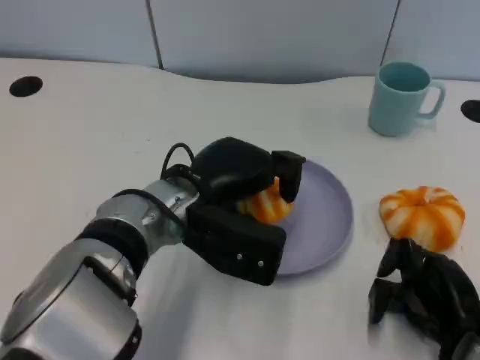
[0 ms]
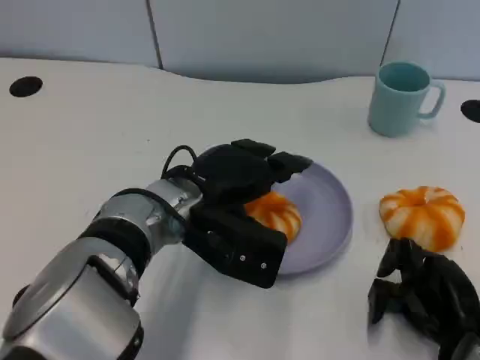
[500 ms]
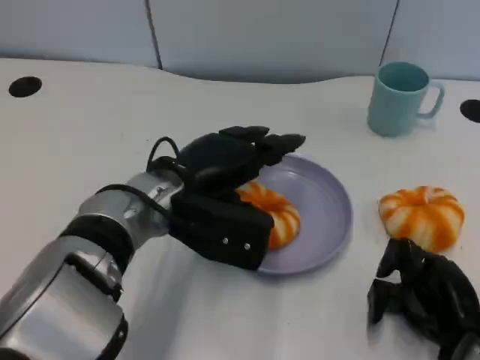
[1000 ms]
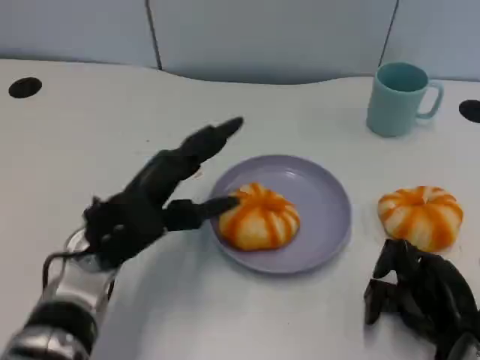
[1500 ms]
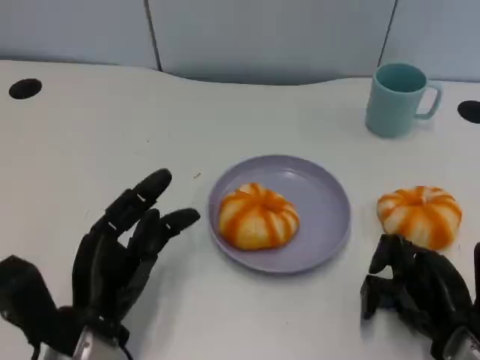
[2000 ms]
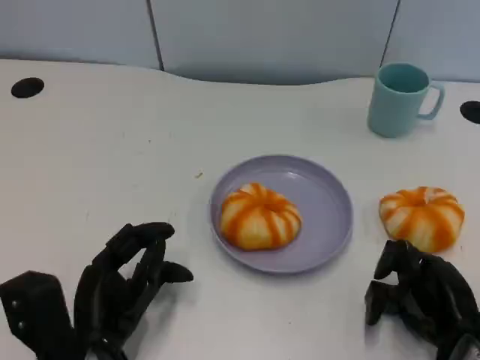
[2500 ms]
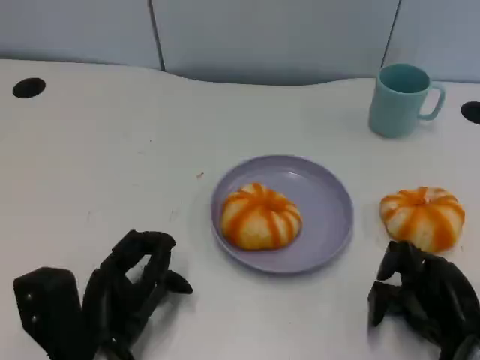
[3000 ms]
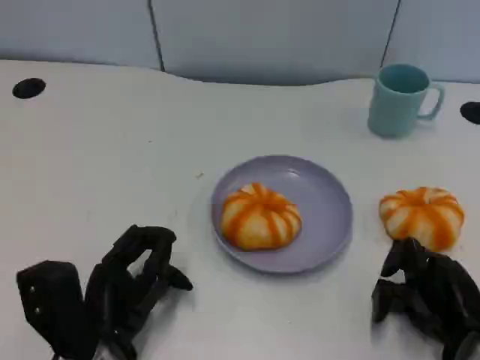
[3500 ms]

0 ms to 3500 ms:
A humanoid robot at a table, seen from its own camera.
Task of the whole recording: Grasp the bread from the table and place it into the plate.
0 ms to 2000 ms: The left hand moves to the left, backward and downward, about 15 cm.
2000 ms to 3500 ms: There are only small adjustments of the hands.

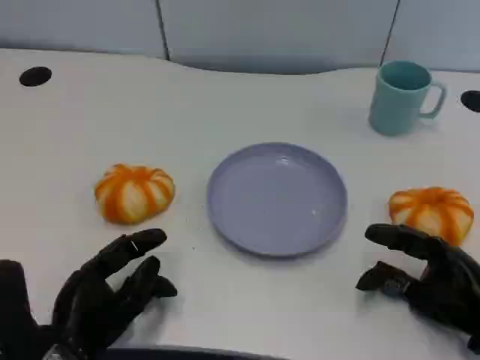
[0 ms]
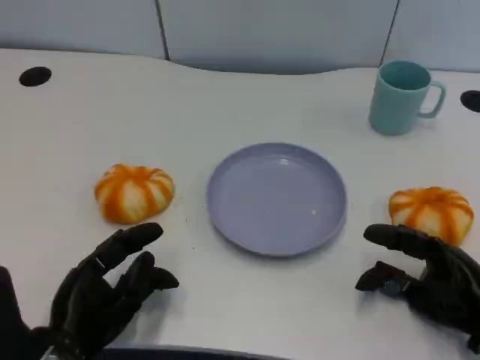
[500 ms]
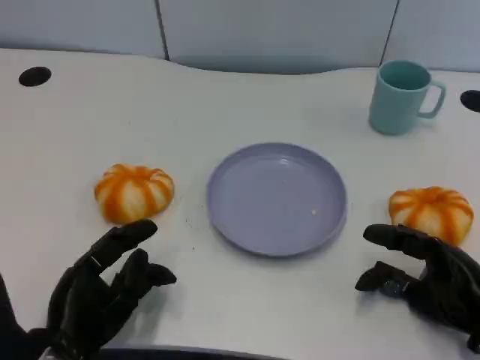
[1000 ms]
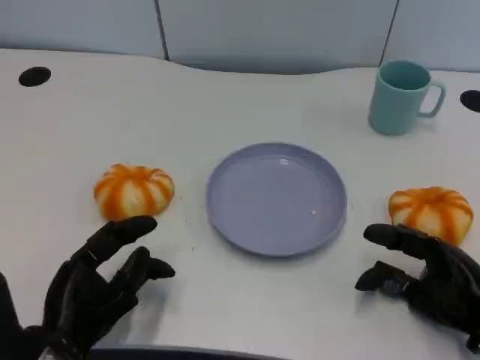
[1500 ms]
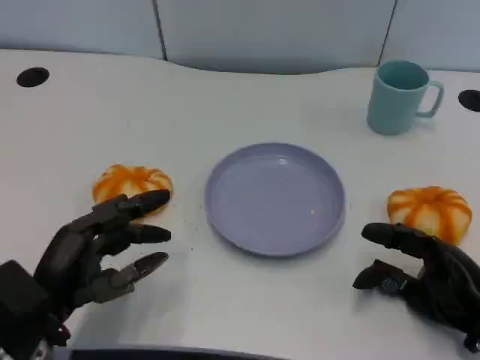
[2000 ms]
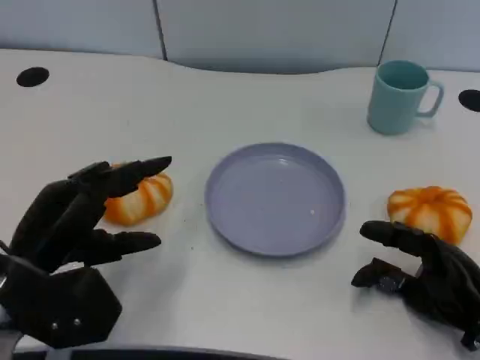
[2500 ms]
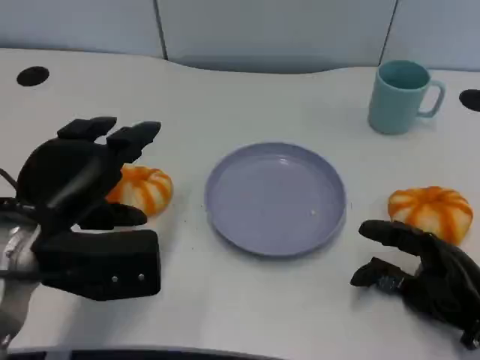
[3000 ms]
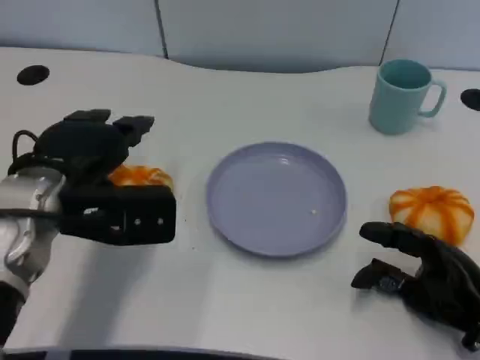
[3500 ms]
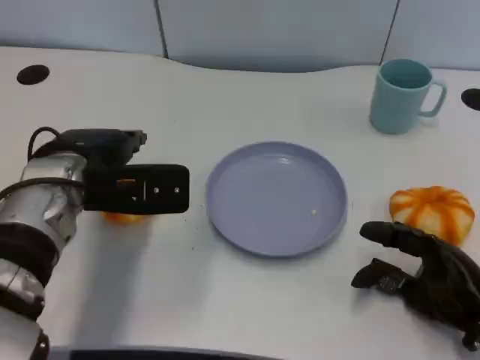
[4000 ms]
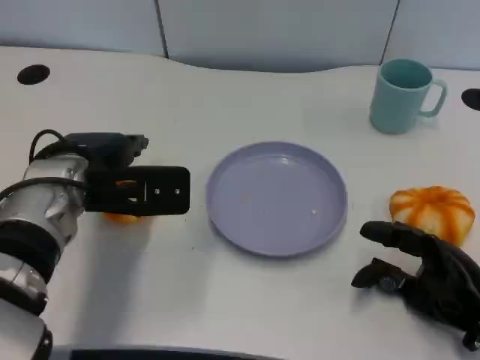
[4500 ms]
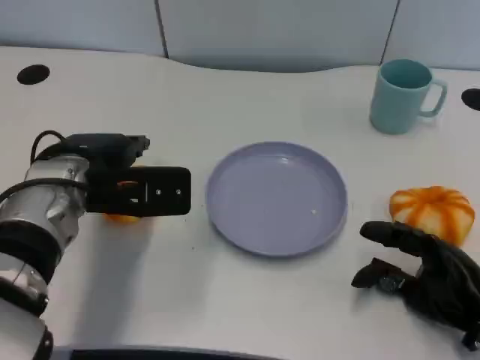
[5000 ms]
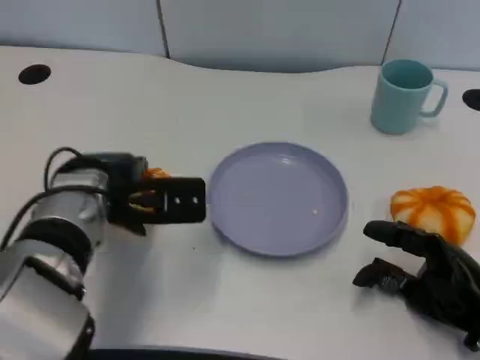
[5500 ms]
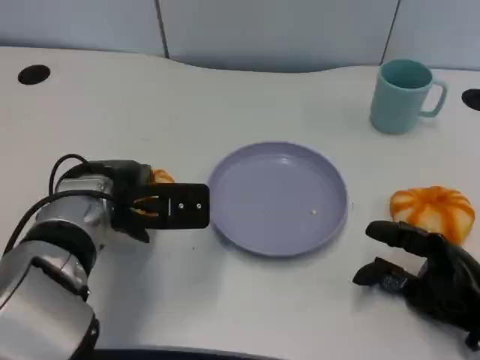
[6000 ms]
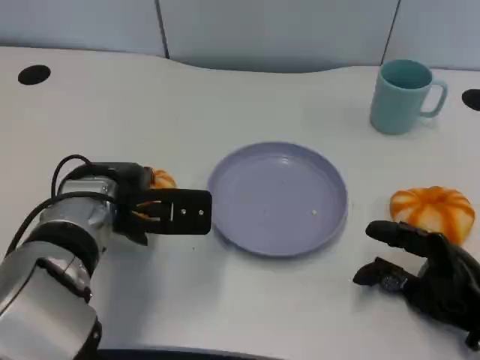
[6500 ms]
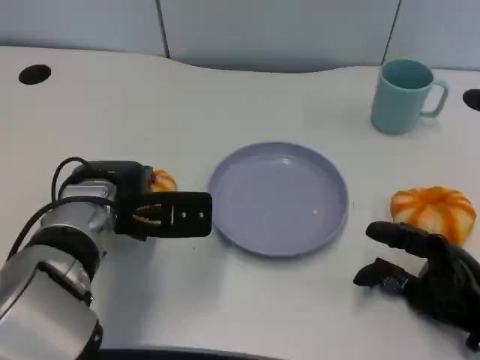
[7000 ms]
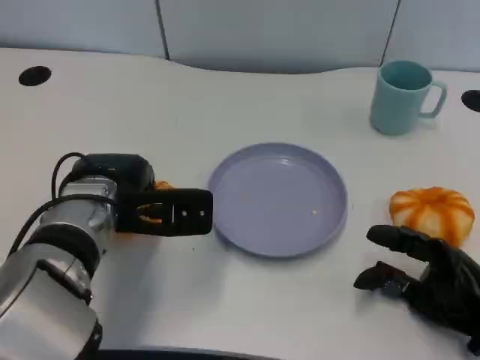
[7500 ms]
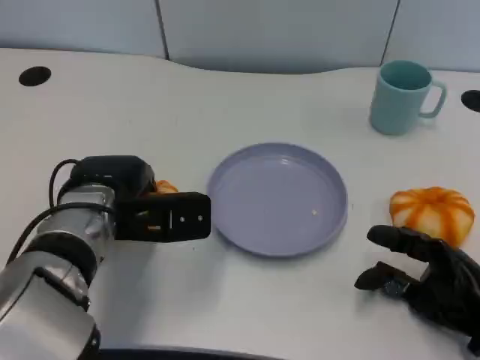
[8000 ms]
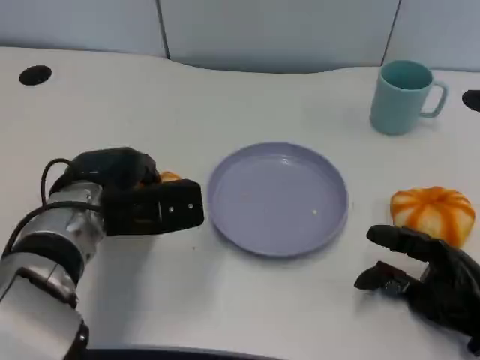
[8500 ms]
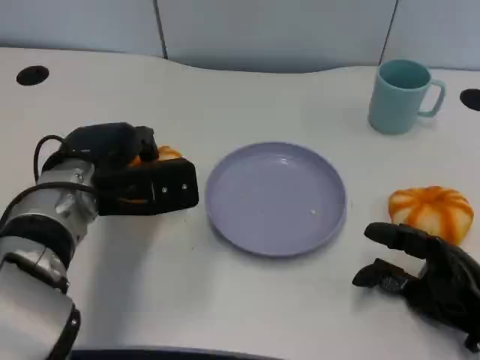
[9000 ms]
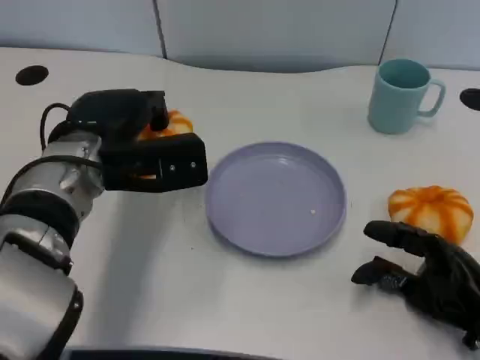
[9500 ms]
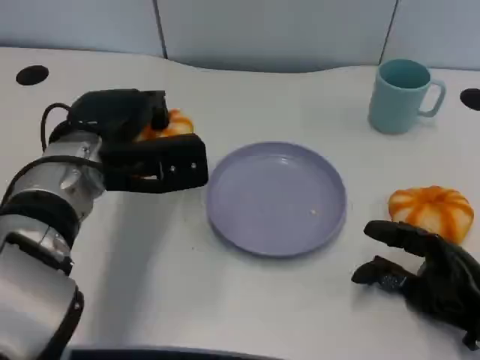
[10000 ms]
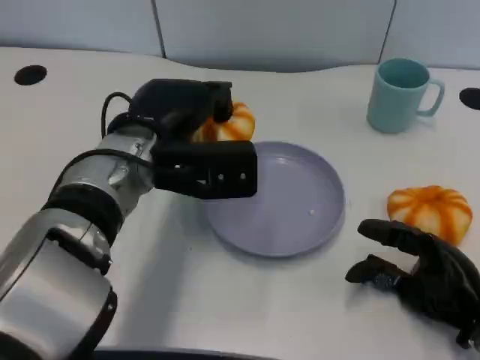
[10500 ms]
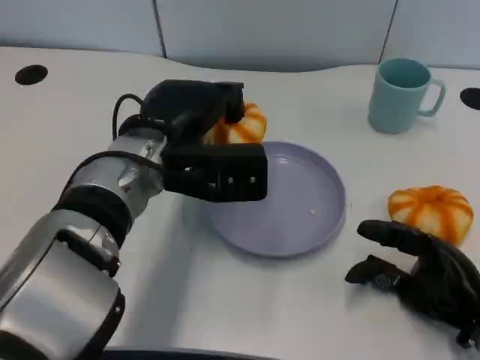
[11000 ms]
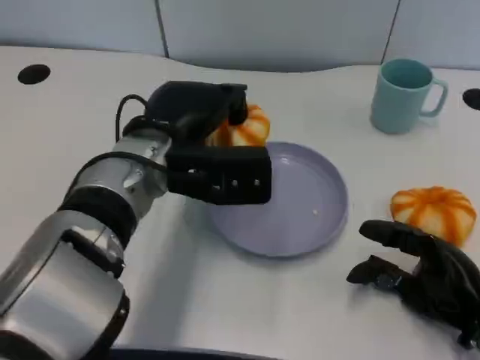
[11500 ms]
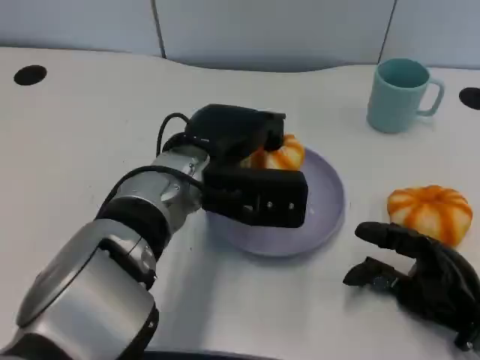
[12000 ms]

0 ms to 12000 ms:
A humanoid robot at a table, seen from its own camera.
Task of the whole recording: Grasp the bread from the table and place it into the plate.
2000 ms to 4000 ms: The left hand moves forward and upward, some 15 cm.
4000 ms to 8000 ms: There are only small adjustments of the hands.
8000 ms to 10000 ms: The left hand heads upward, covering about 5 cm.
10000 ms to 12000 ms: The left hand travels to the right by approximately 10 cm.

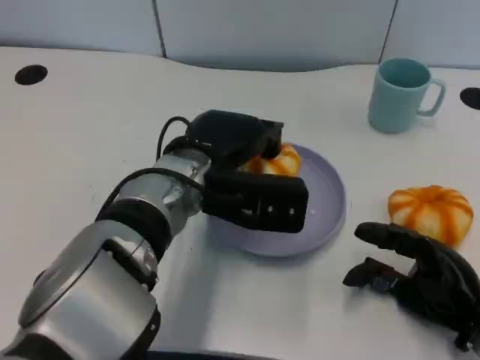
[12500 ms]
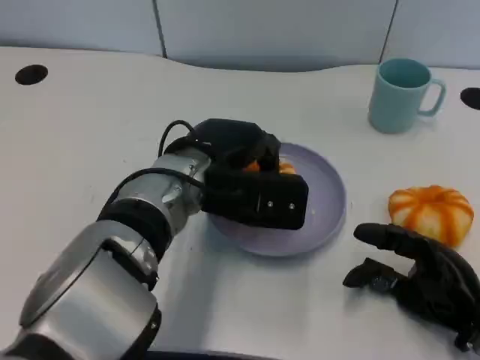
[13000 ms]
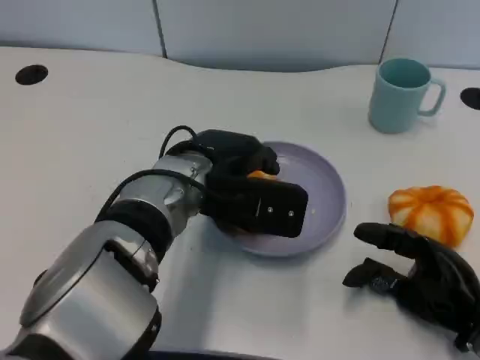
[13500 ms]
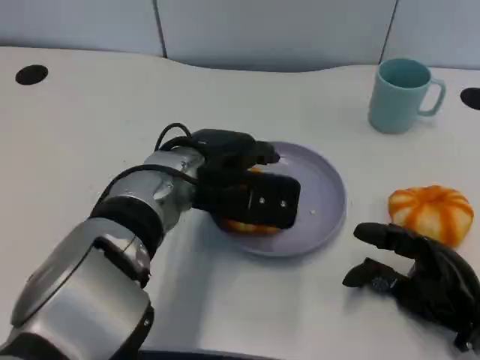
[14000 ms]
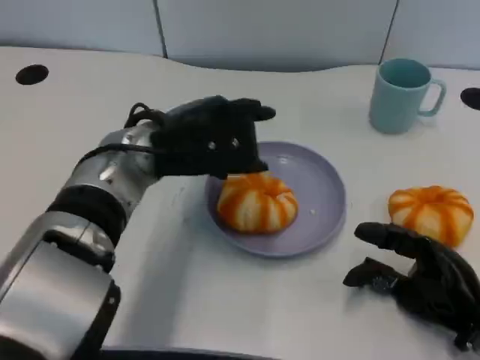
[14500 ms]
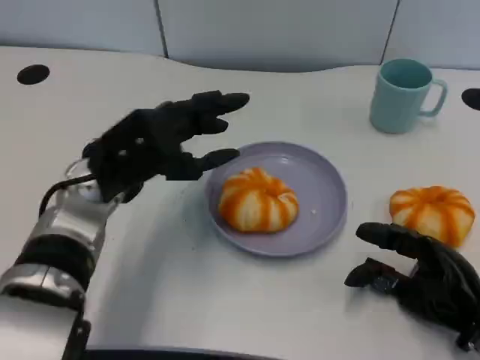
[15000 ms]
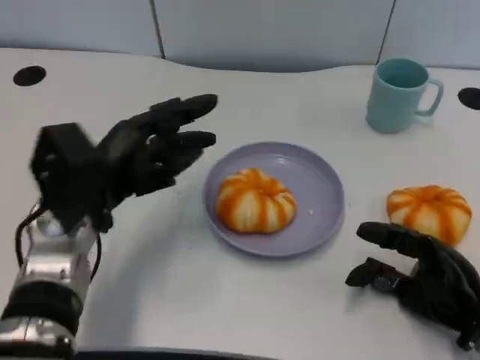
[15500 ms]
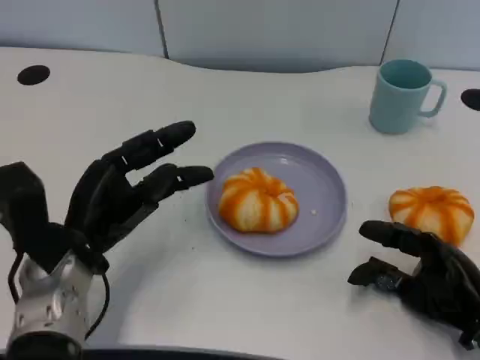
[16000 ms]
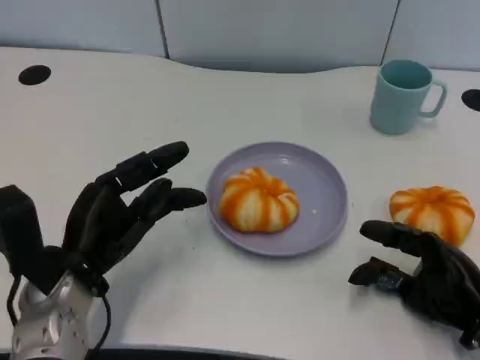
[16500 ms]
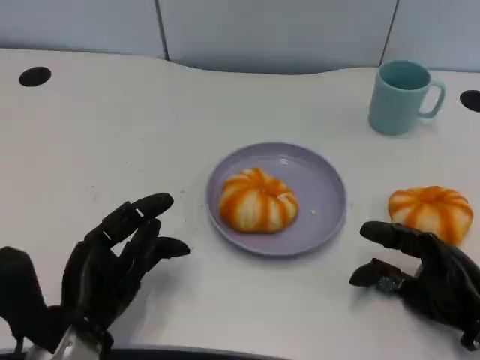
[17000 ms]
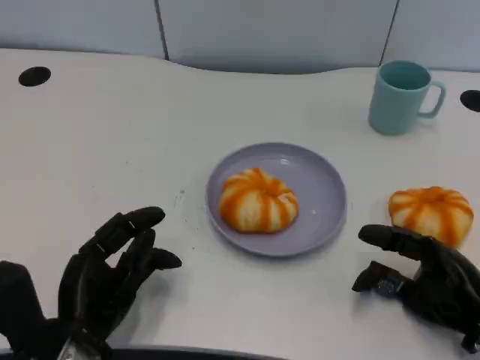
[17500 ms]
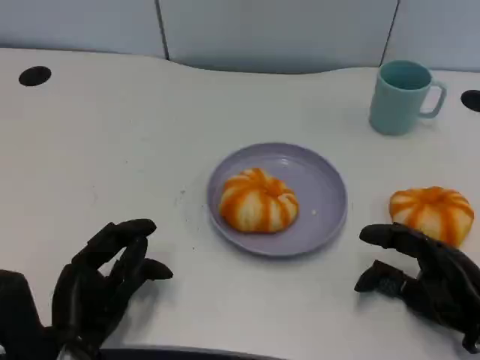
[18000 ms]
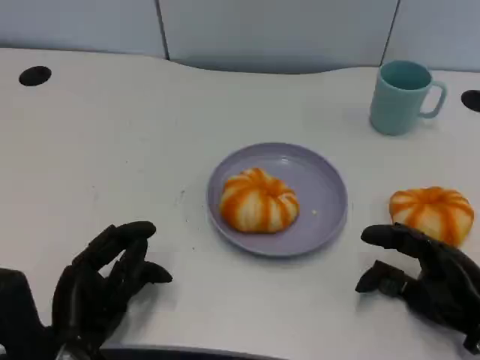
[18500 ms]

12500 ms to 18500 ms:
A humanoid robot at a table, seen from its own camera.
Task of the whole recording: Grasp the bread from the table and place it into the plate.
12500 ms to 14500 ms: The left hand shifts by about 5 cm.
14500 ms to 16500 ms: The left hand is displaced downward, to the left and backward by about 15 cm.
16500 ms to 18500 ms: The left hand goes some 5 cm backward.

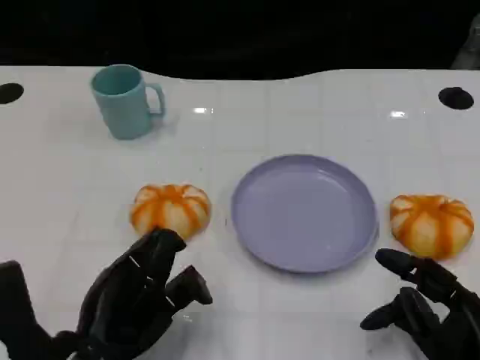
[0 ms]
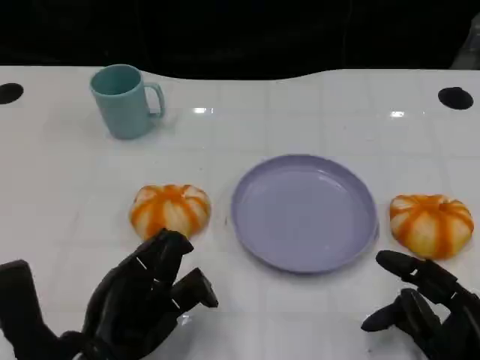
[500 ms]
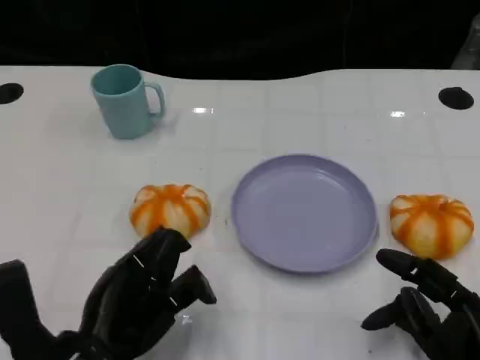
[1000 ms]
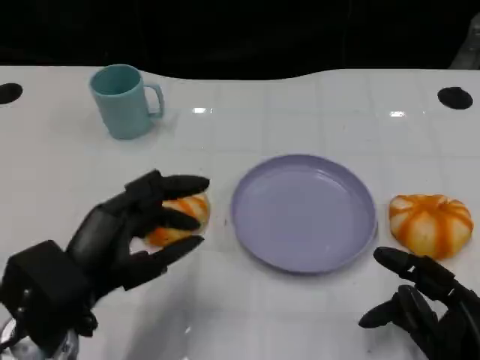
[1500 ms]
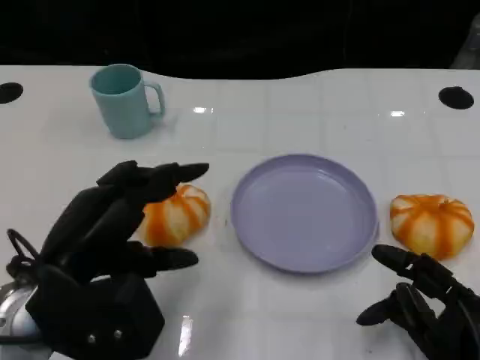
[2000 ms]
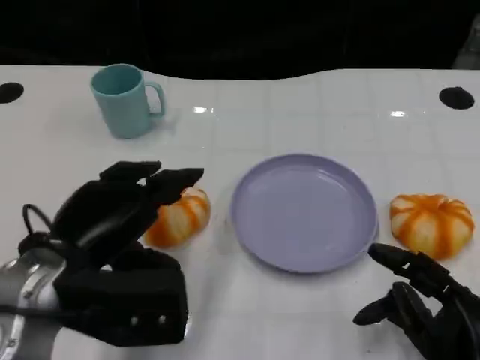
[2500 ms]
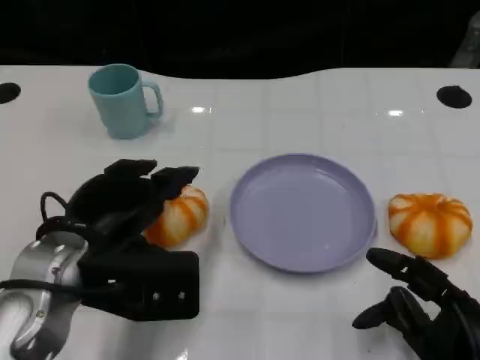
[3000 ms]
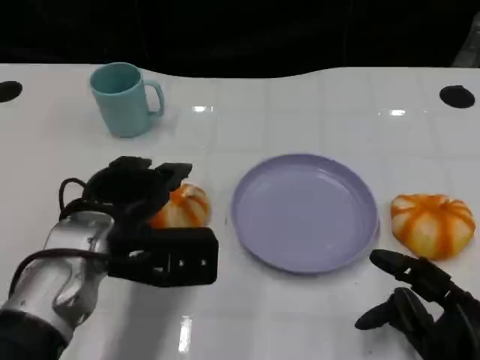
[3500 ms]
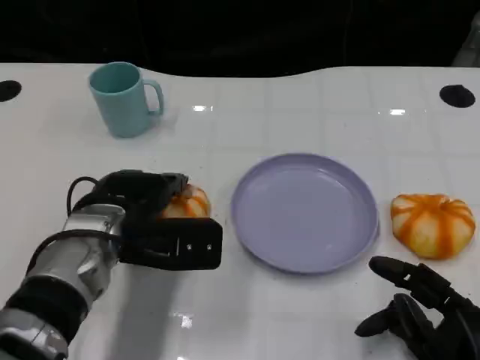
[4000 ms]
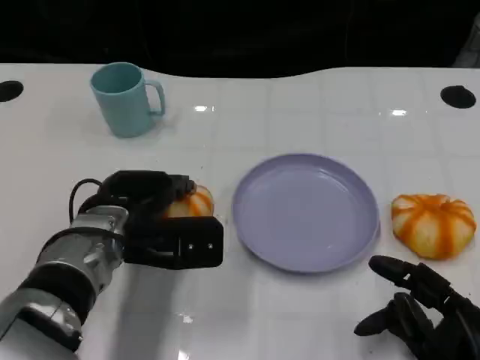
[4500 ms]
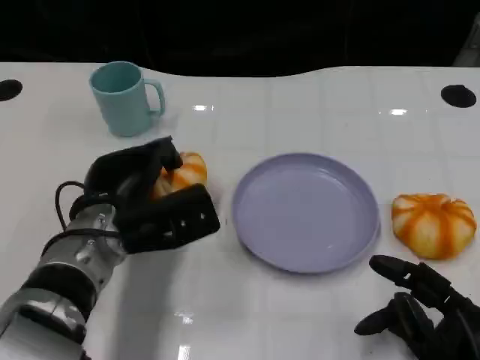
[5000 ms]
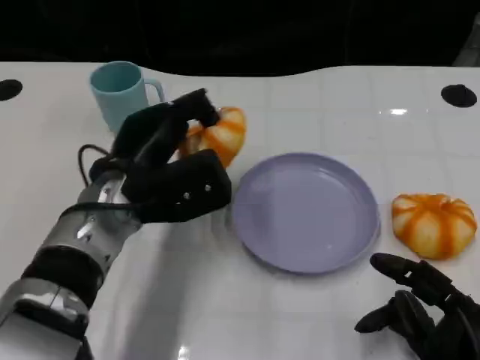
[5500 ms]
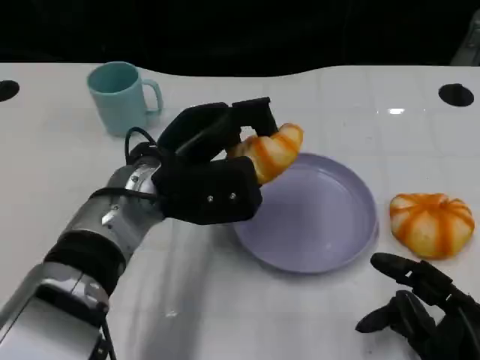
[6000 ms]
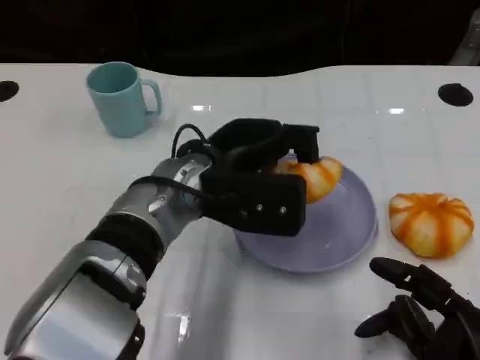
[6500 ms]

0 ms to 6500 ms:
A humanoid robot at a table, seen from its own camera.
Task of the whole recording: Grasp the bread from the table and place it into the plate.
0 ms to 2000 ms: The left hand heads upward, covering approximately 5 cm.
2000 ms to 4500 ms: The left hand shifts roughly 10 cm forward and downward.
4500 ms to 6500 ms: The left hand is displaced to the right and upward by roughly 10 cm.
